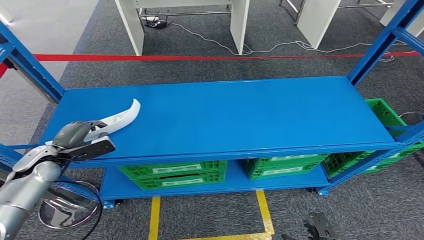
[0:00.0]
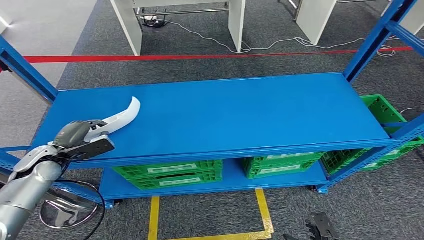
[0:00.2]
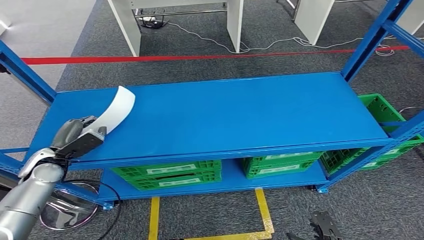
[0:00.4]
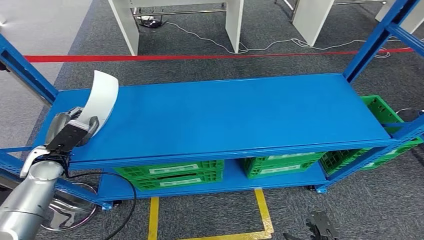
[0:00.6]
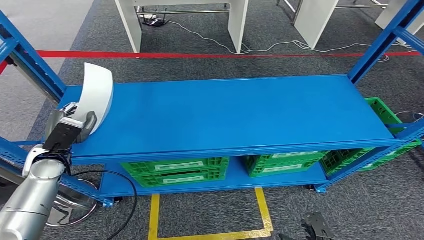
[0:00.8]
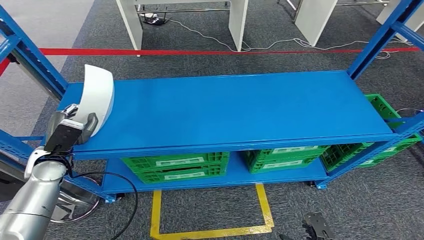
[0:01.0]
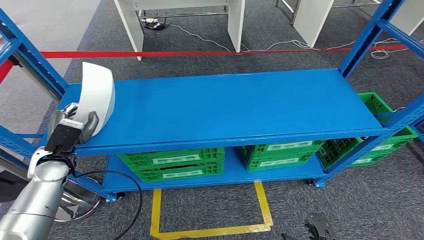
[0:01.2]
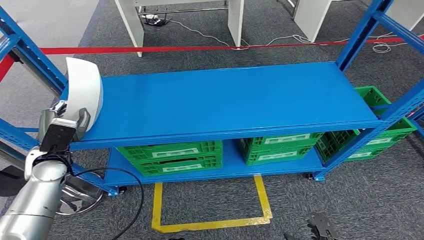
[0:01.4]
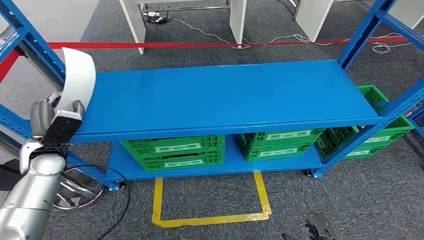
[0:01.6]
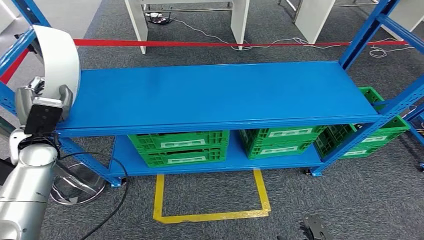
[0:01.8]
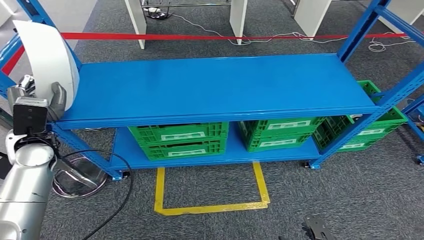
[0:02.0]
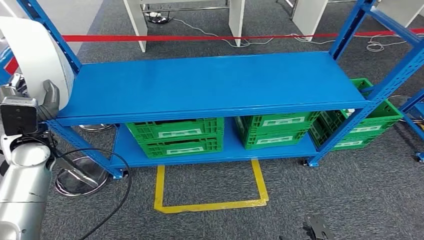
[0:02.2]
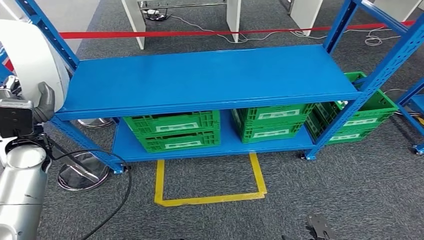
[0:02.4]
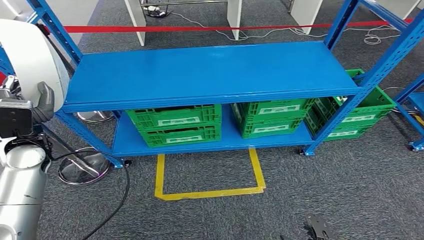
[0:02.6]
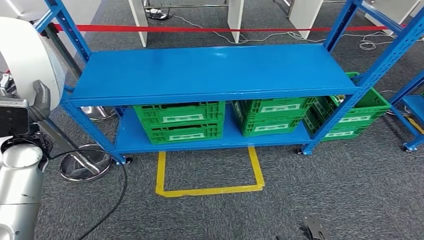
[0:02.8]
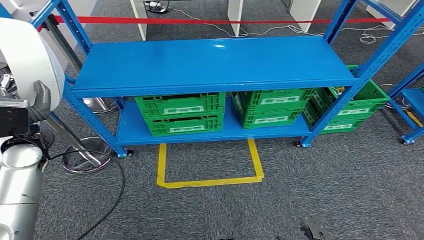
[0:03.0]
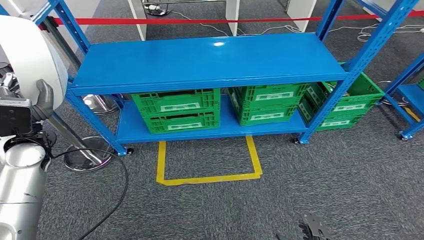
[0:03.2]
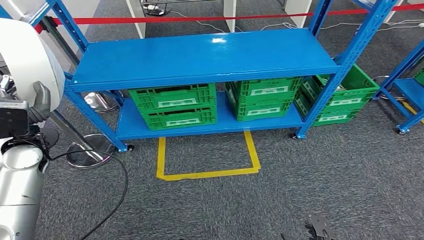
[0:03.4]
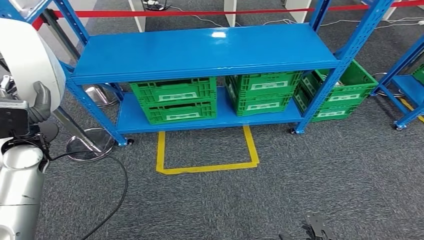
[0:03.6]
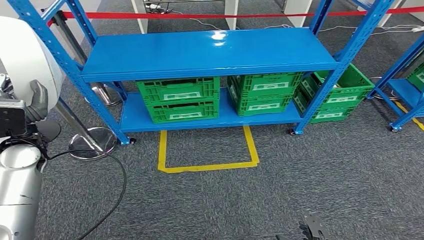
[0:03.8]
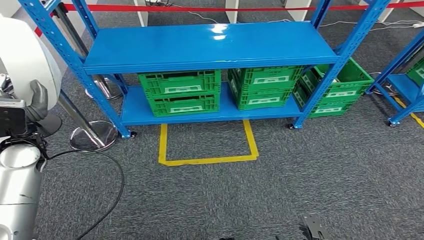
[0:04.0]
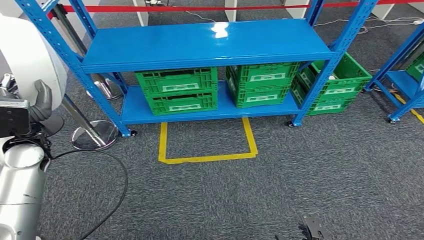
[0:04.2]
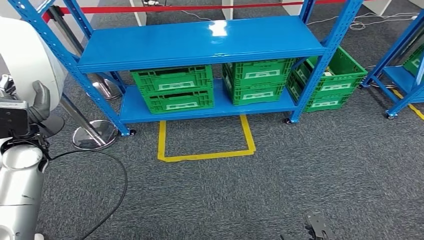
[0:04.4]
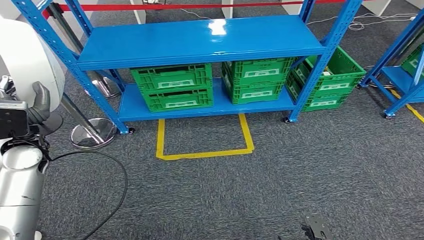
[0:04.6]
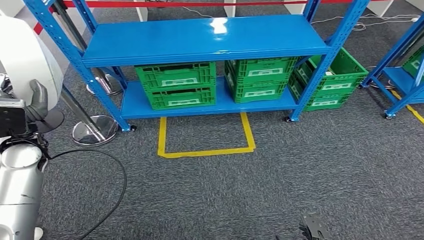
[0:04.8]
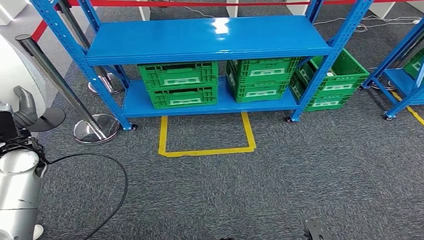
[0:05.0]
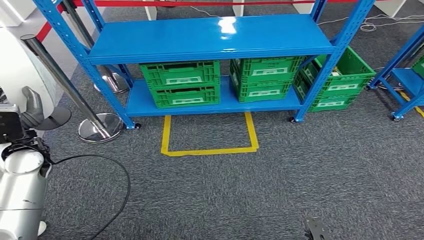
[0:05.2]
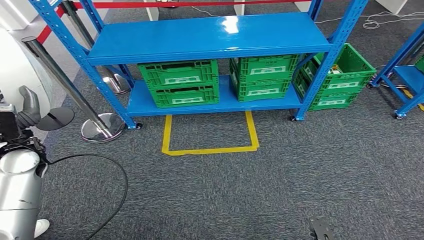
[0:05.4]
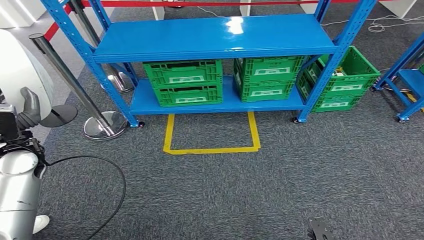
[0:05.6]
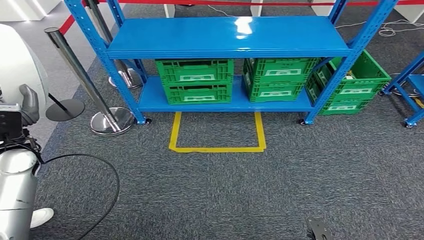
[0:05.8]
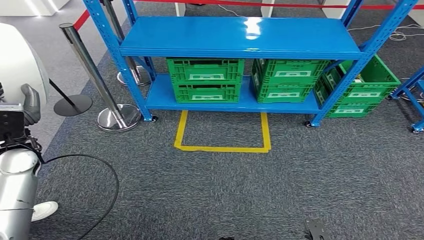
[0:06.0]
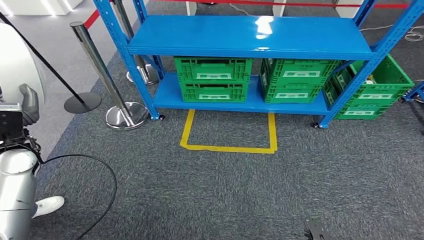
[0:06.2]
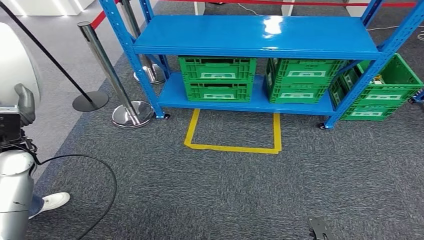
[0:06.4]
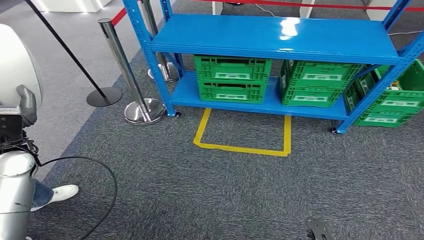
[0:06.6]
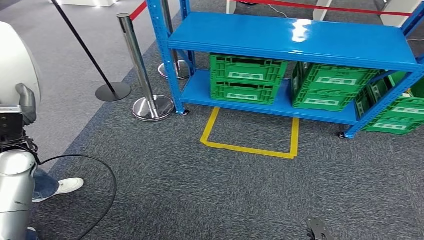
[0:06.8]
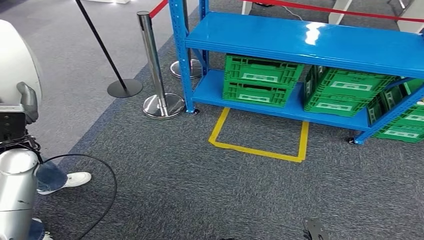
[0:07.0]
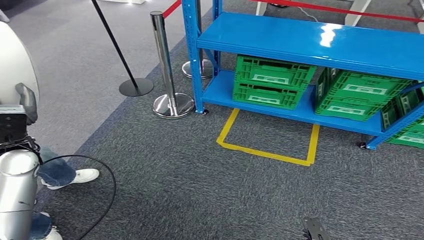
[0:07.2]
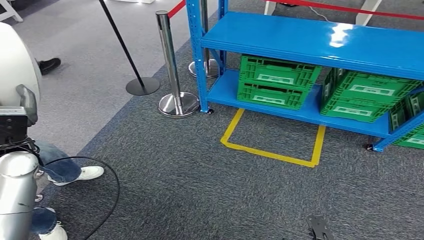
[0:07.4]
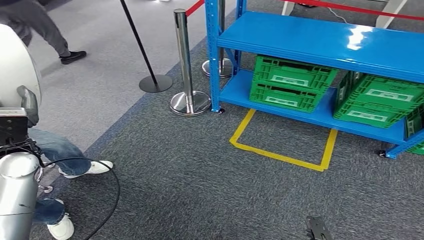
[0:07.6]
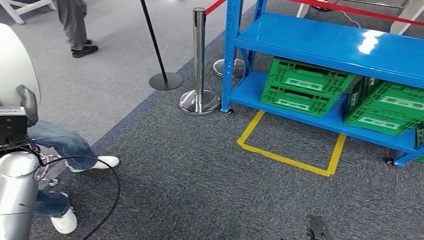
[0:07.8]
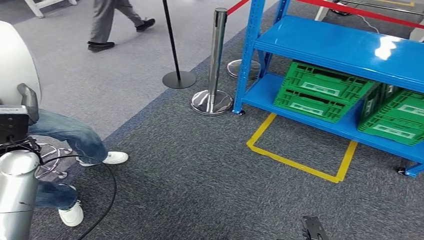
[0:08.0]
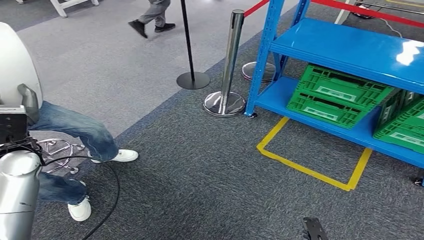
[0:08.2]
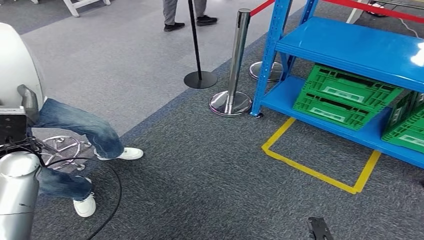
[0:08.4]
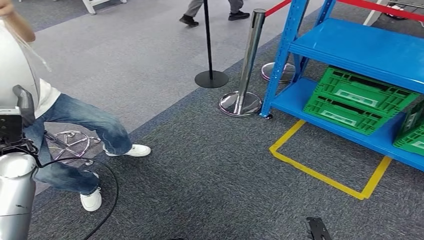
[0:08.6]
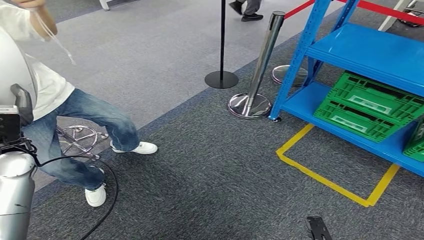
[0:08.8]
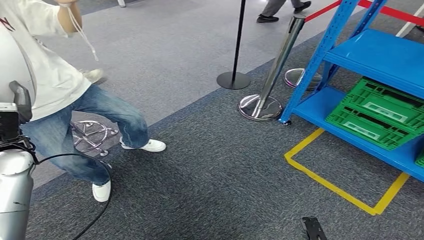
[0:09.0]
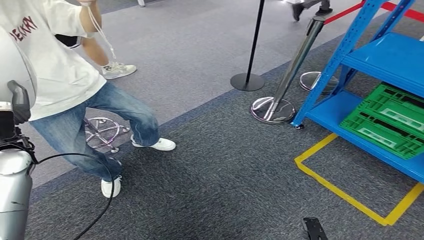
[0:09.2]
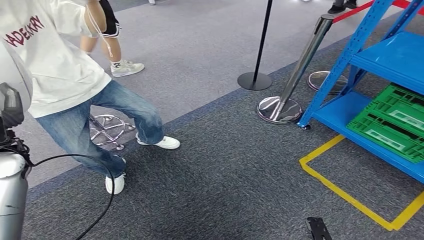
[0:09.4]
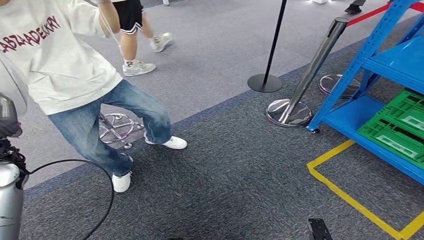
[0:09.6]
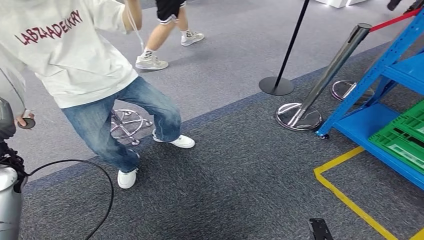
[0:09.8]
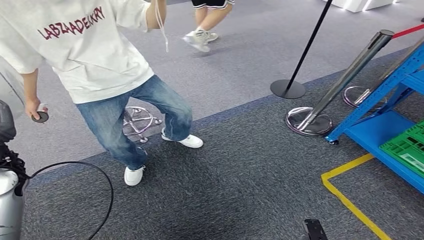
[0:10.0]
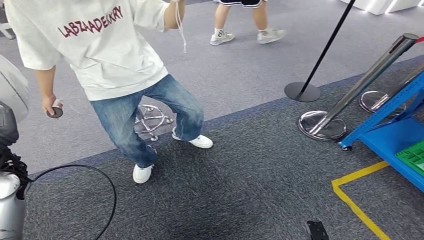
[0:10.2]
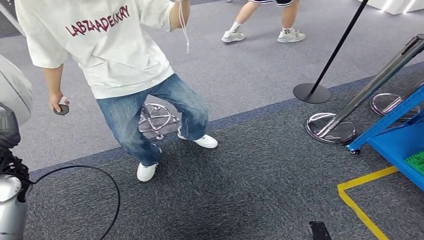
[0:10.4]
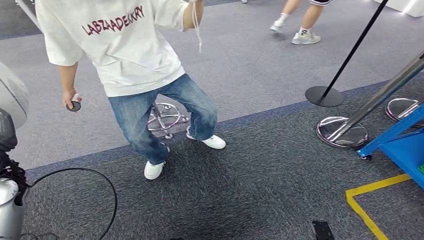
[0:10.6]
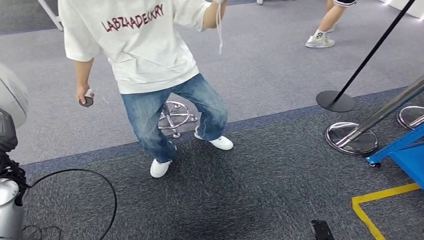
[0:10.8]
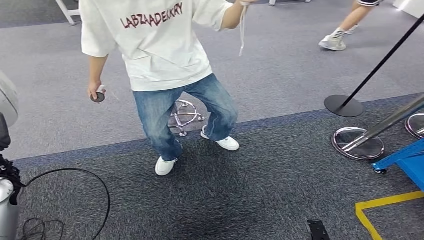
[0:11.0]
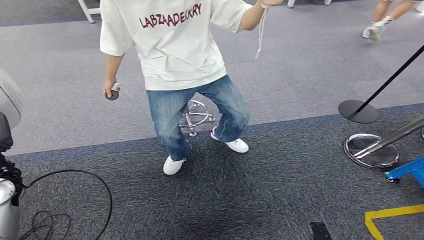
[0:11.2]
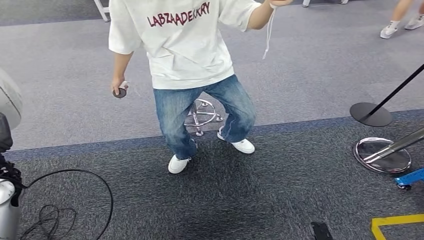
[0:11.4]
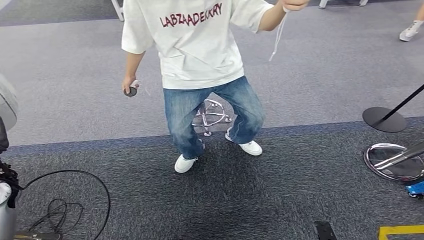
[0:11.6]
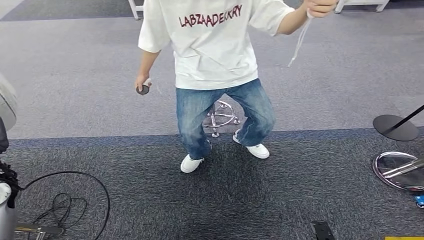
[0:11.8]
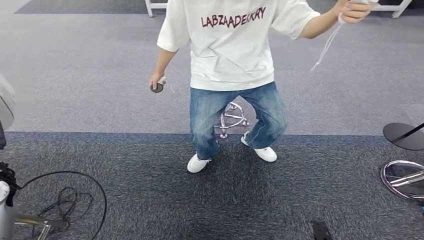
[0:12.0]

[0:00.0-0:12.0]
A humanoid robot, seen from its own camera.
Step, 0:00.0 to 0:02.4: Take small components from the rack.

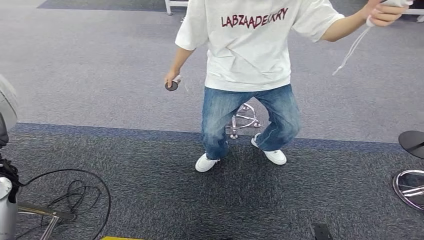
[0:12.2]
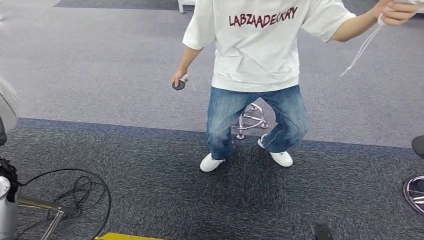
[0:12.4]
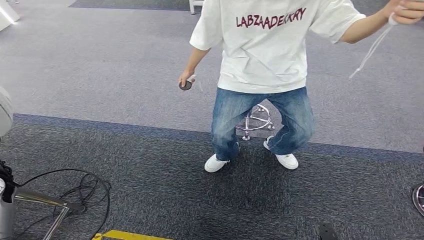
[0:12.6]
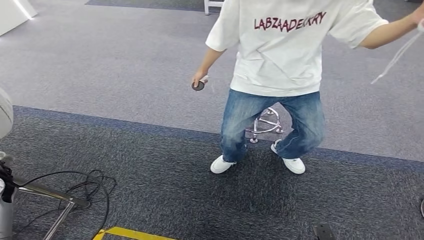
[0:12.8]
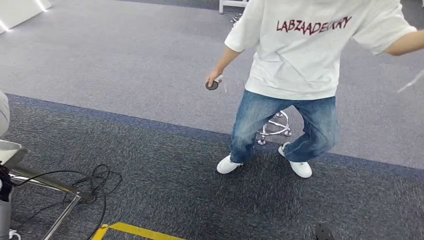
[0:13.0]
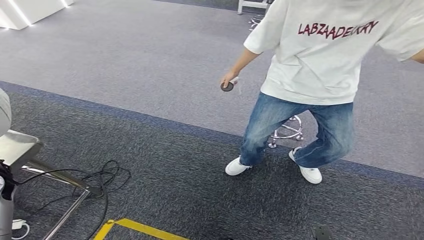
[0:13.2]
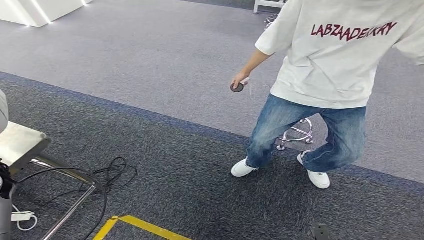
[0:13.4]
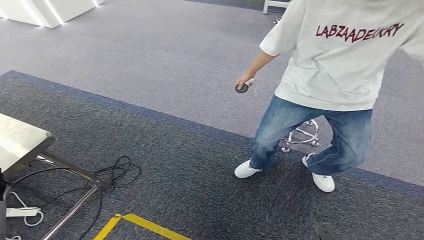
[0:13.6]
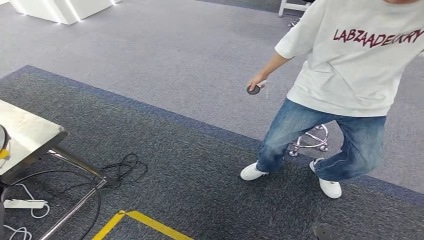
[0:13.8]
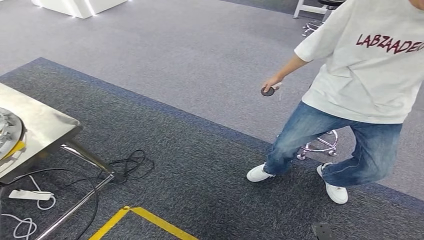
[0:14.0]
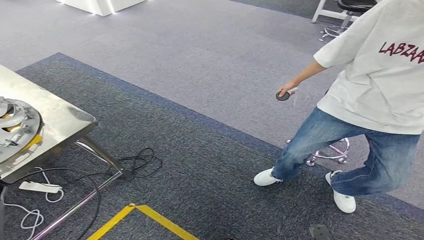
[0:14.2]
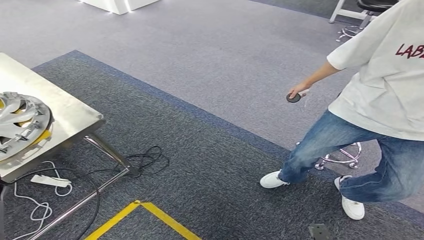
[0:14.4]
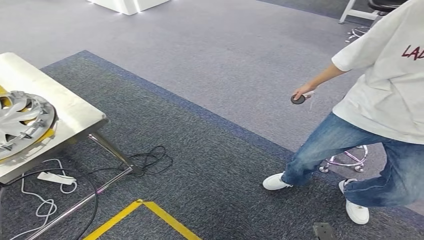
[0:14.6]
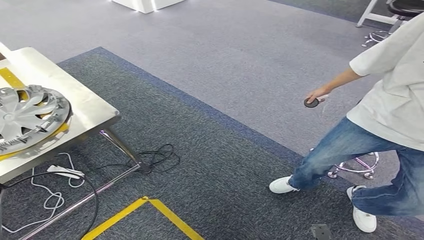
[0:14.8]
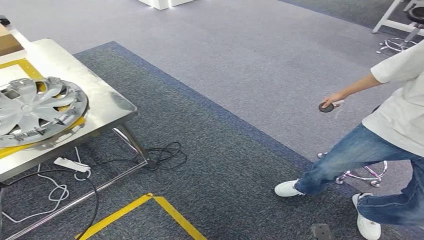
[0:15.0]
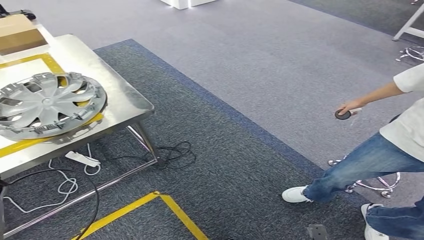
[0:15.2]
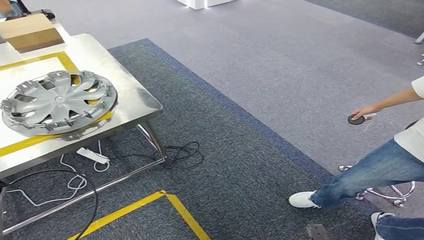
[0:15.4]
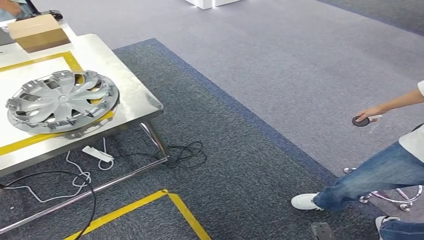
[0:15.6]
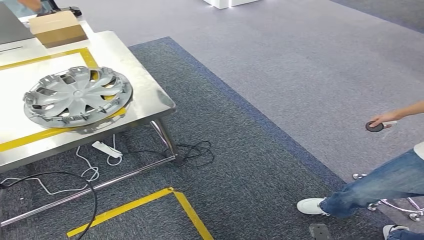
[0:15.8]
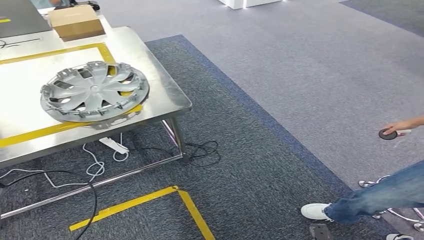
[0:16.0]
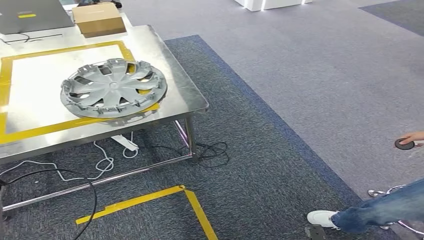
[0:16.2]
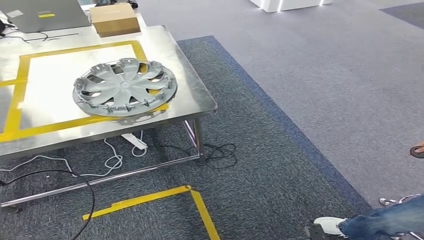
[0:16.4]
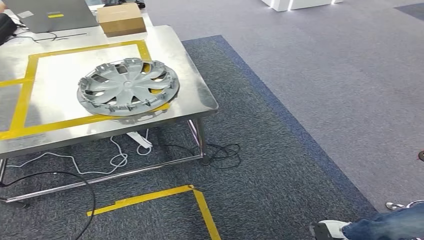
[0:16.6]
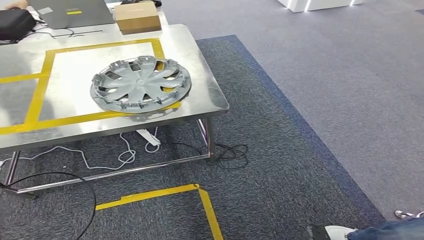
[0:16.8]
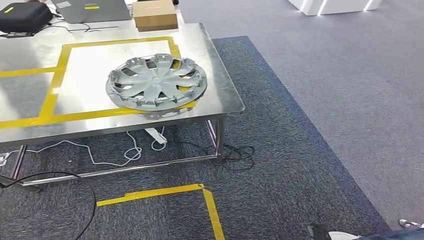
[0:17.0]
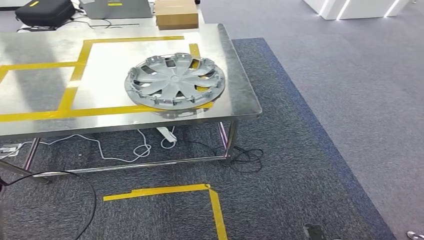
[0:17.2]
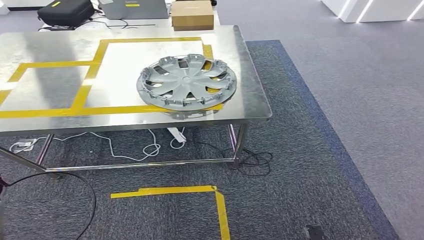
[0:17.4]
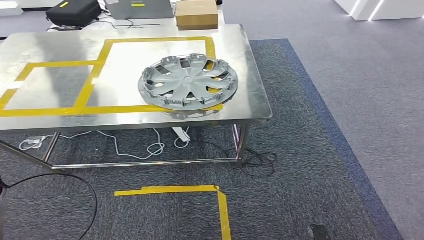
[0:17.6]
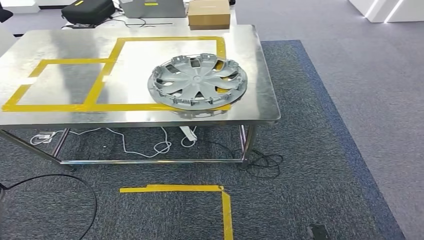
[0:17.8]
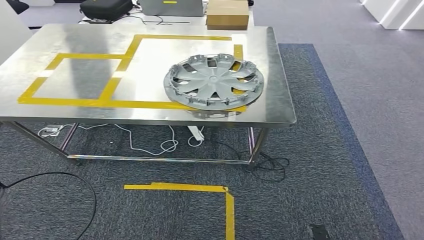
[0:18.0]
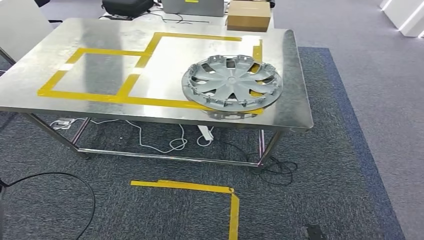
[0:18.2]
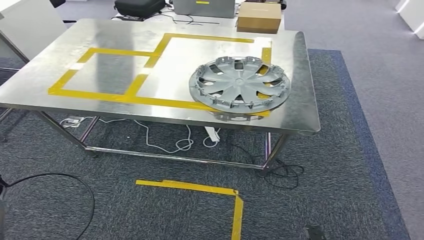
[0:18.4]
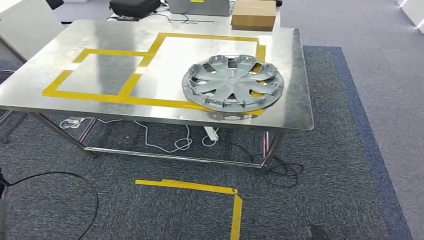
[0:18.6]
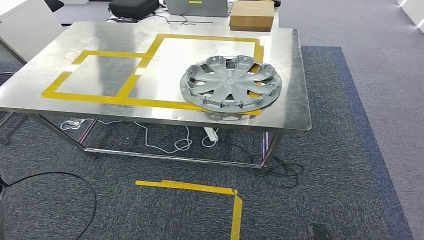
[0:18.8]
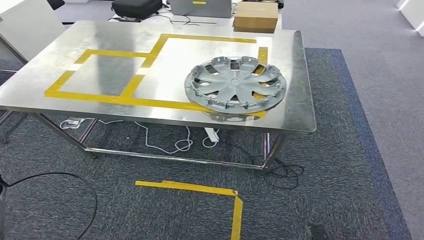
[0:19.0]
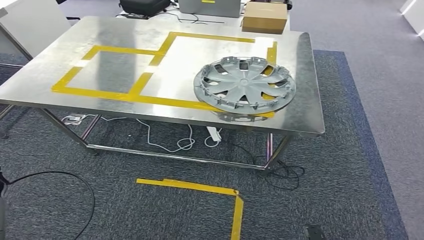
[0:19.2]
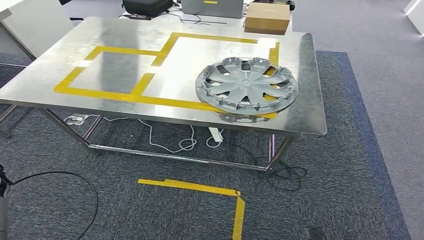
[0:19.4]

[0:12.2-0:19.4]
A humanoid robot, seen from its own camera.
Step, 0:12.2 to 0:19.2: Move the small parts to the workbench.
